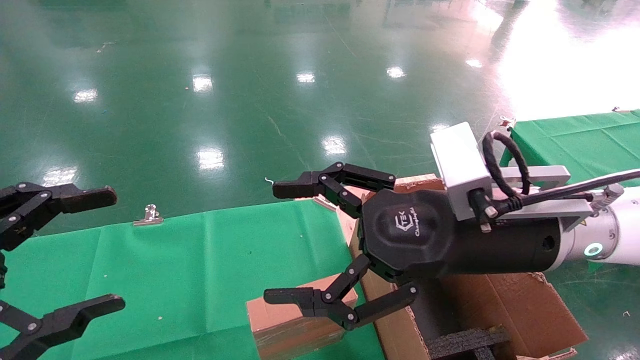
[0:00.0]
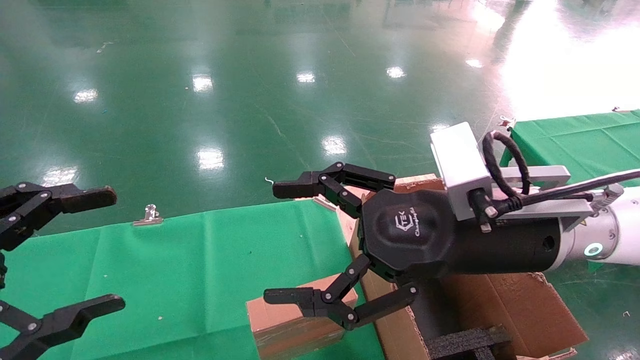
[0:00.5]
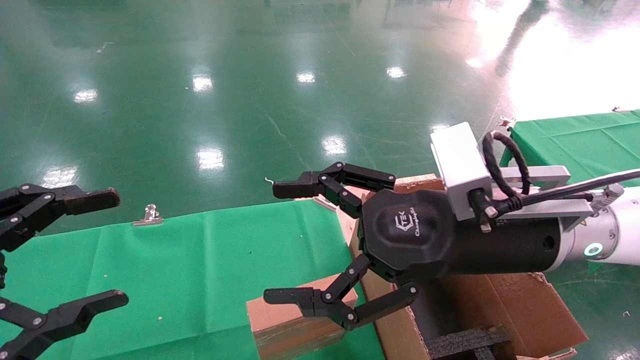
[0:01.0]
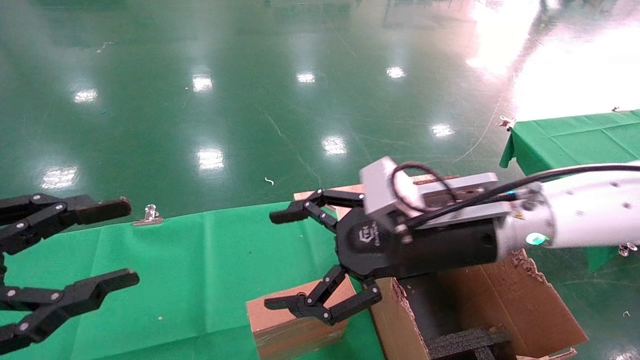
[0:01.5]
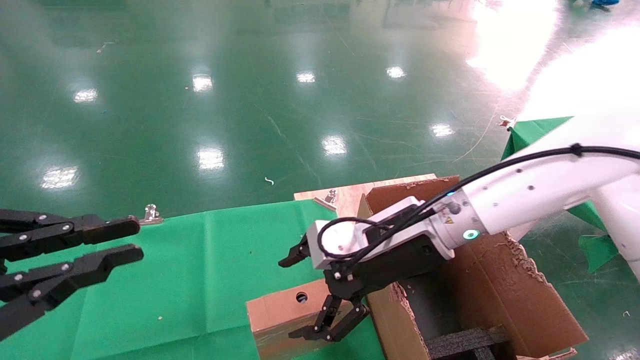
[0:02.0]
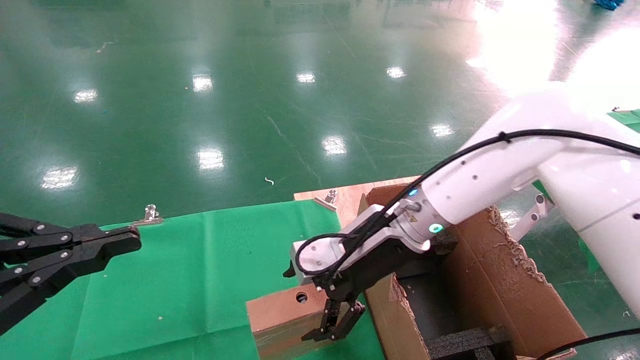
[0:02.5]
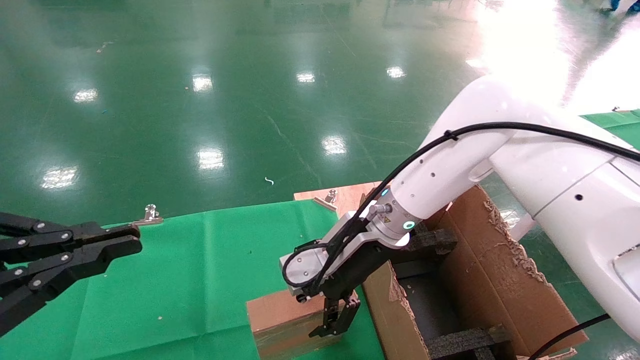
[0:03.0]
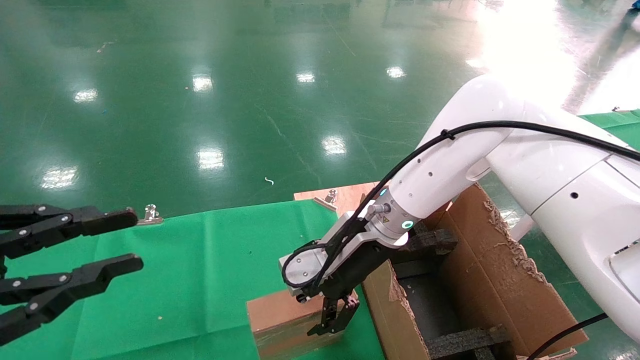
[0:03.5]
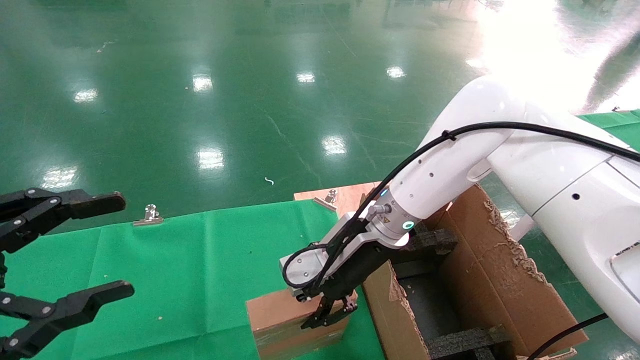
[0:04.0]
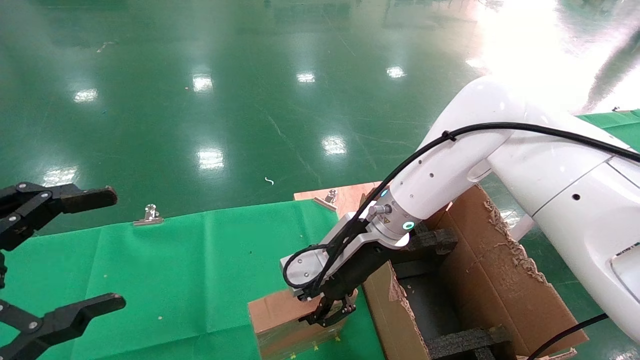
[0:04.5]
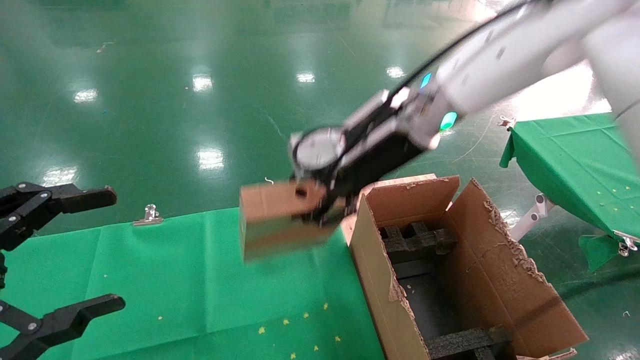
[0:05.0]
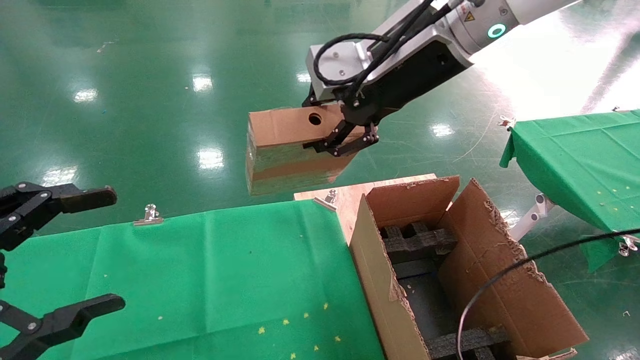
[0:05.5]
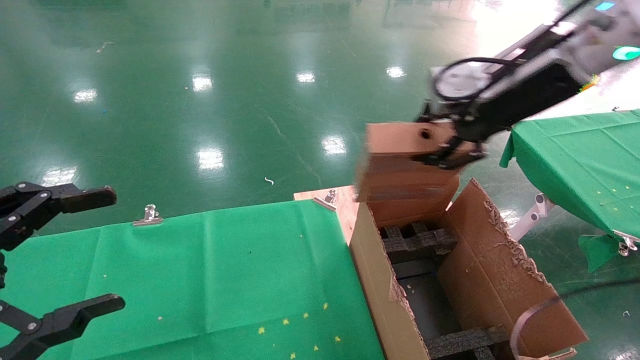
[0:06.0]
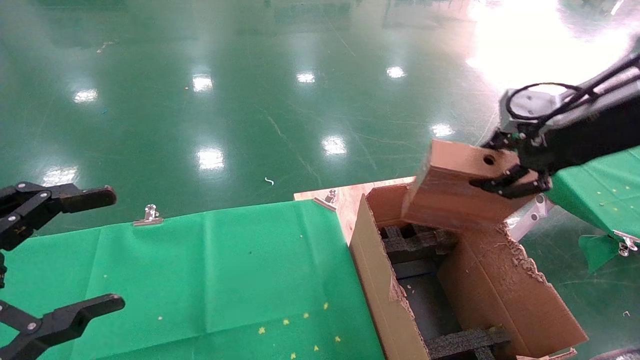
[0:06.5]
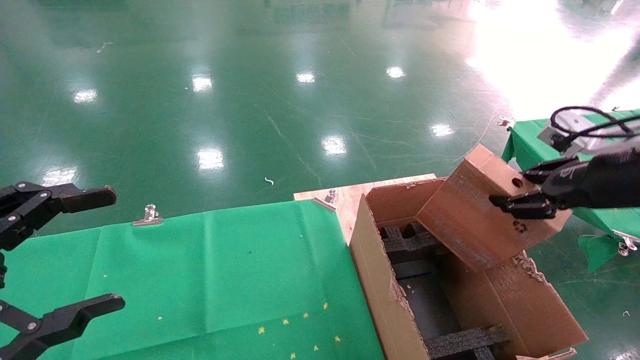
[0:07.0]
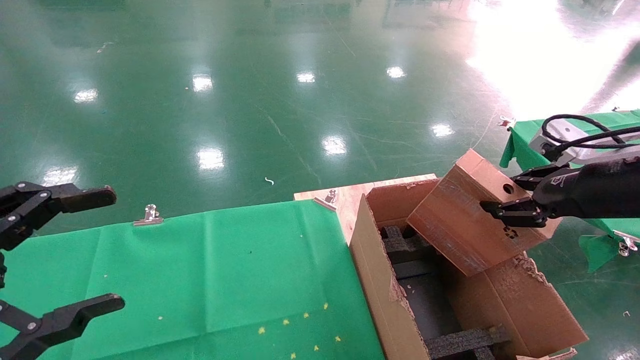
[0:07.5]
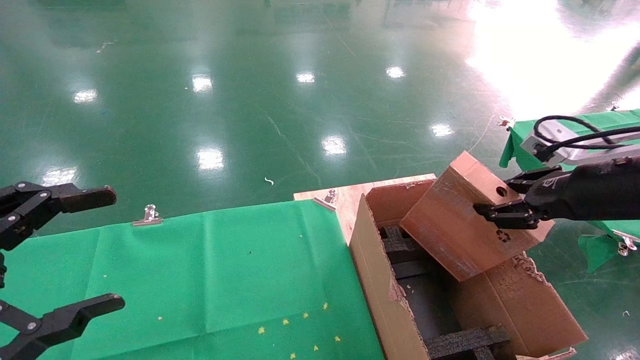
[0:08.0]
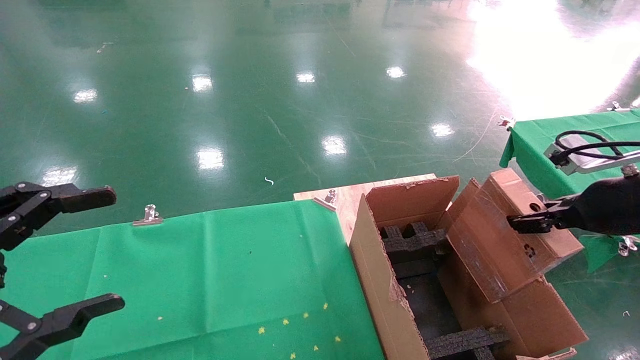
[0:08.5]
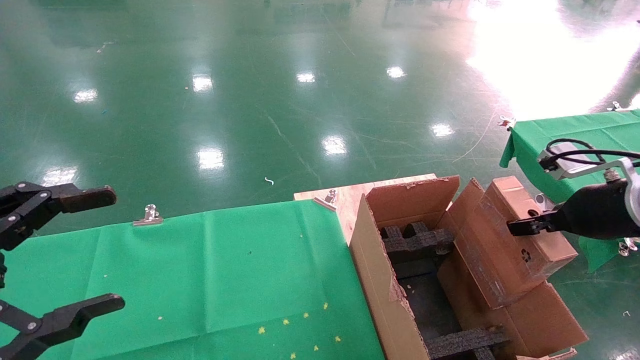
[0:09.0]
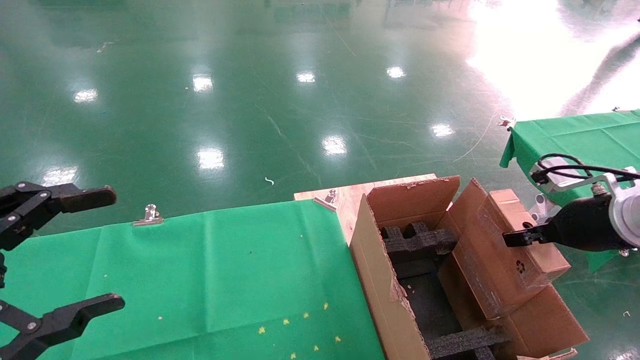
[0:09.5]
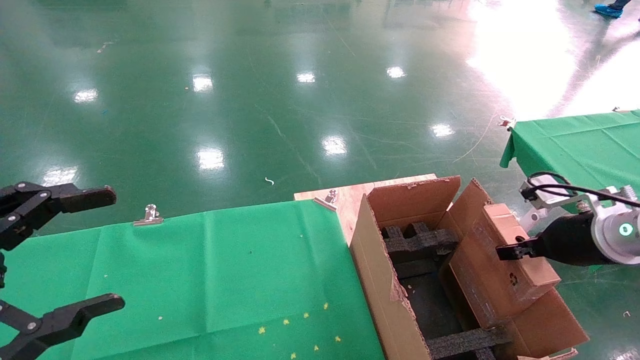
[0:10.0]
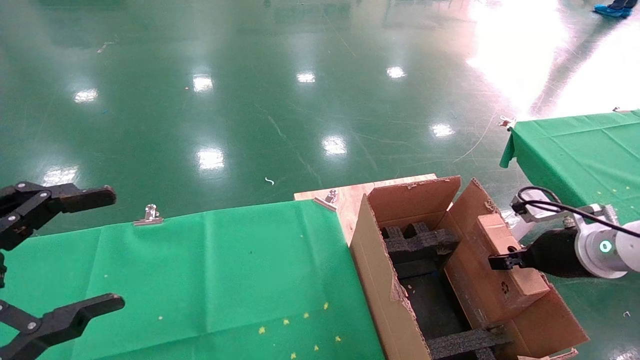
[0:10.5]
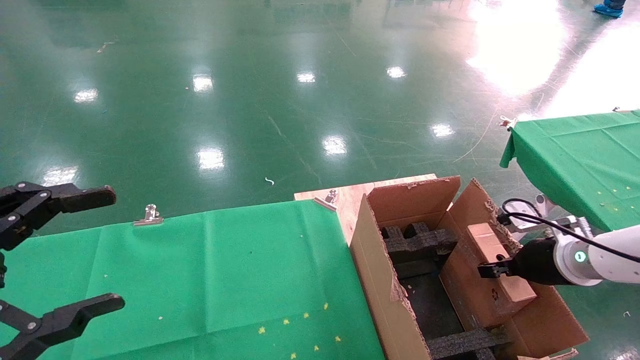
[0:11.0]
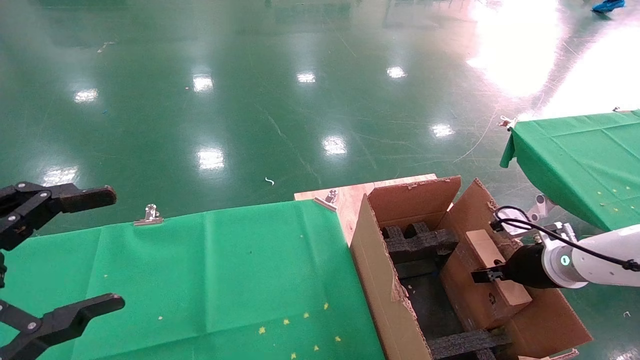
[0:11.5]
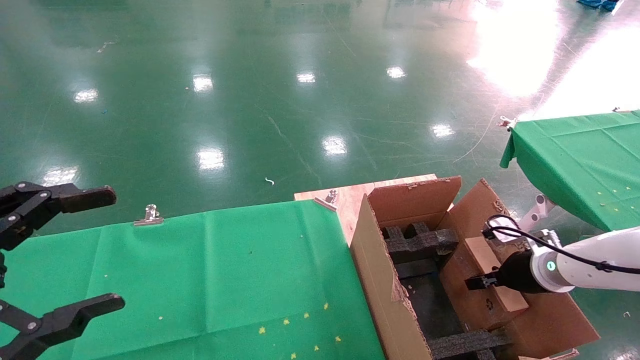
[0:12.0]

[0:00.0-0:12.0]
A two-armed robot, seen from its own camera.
Task of the whole recording: using a robotic arm to pick up a cardboard box and palace it the carton.
Step, 0:01.5 to 0:04.0: Pick up the mouse and the power cord paper box.
0:00.0 to 0:02.0: The left gripper closes, while the right gripper heads forward, covering about 10 cm.
0:02.0 to 0:04.0: The right gripper travels forward by about 5 cm, and closes its fingers. Meanwhile the left gripper opens its fingers.
0:04.0 to 0:06.0: The left gripper opens. Meanwhile the right gripper travels upward and to the right by approximately 25 cm, and closes up.
0:06.0 to 0:08.0: The right gripper is displaced downward, to the right and backward by approximately 20 cm.
0:08.0 to 0:10.0: The right gripper goes about 10 cm downward.
0:10.0 to 0:12.0: The right gripper goes approximately 15 cm downward and forward.

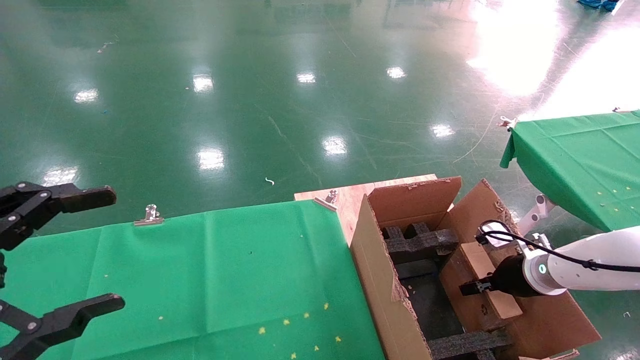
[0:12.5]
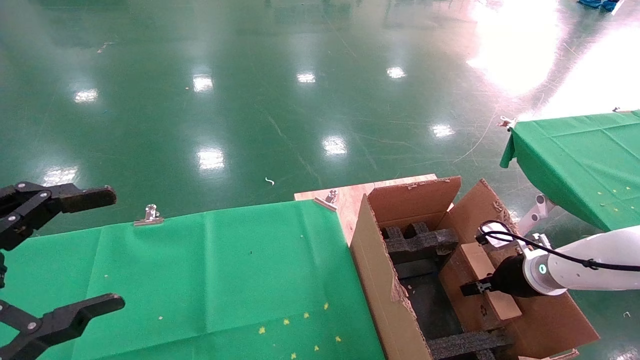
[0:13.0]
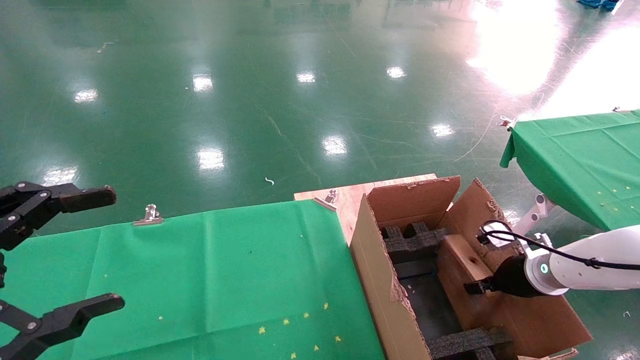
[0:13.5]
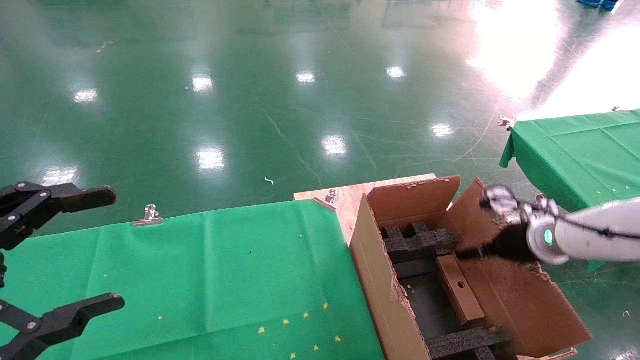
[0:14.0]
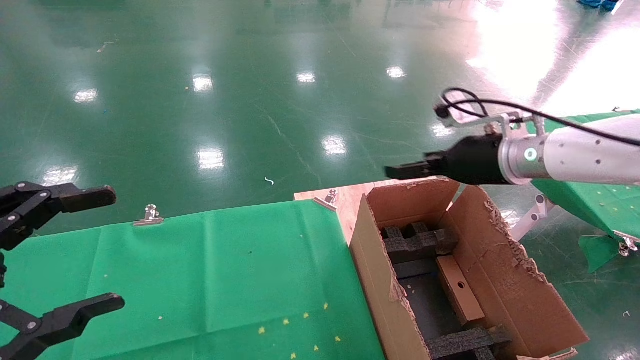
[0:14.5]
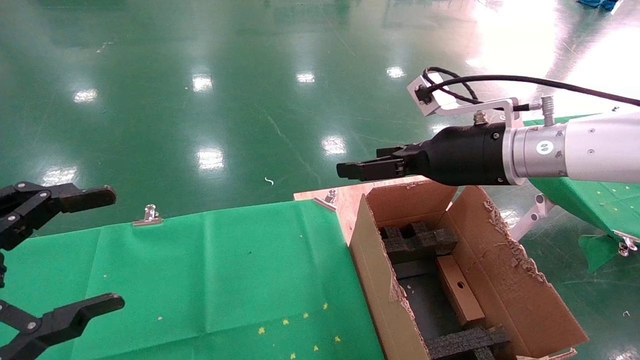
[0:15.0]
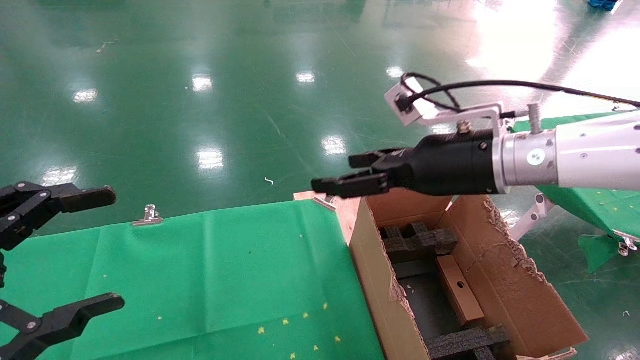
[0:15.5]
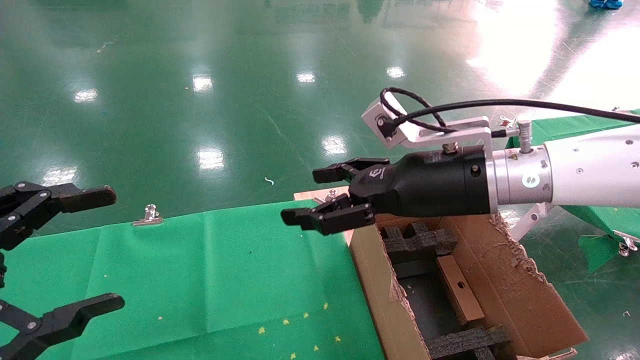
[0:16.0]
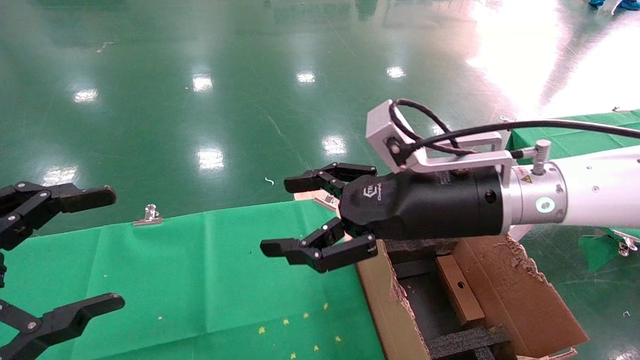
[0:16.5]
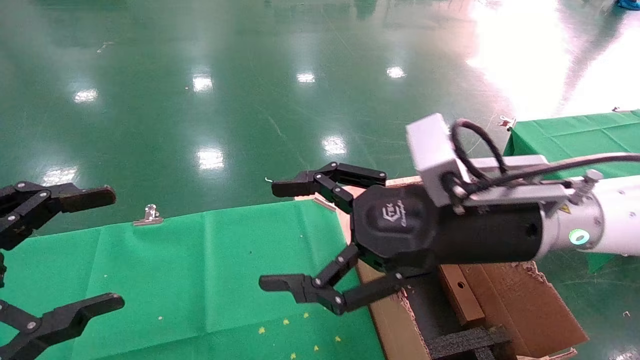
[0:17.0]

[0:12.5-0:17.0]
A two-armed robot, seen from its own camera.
Task of the whole recording: using a robotic arm to pick up a cardboard box and palace it the carton.
0:12.5 to 0:14.5: The right gripper is displaced upward and to the left by roughly 25 cm, and opens its fingers.
0:14.5 to 0:17.0: The right gripper travels backward and to the left by some 15 cm.

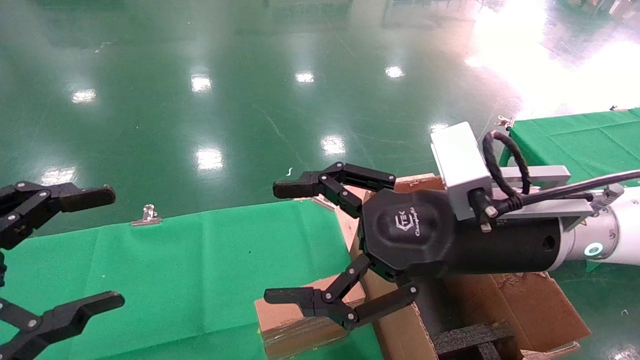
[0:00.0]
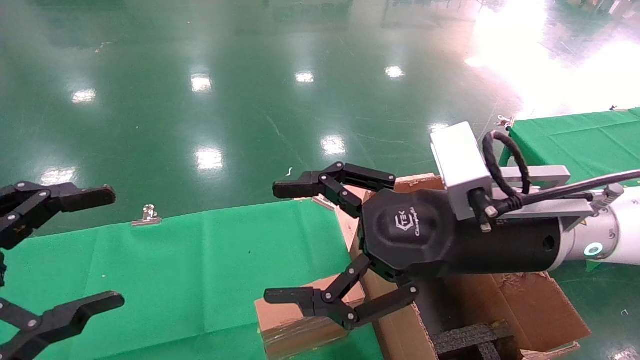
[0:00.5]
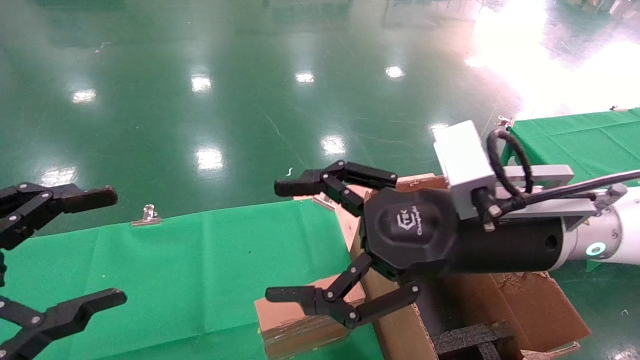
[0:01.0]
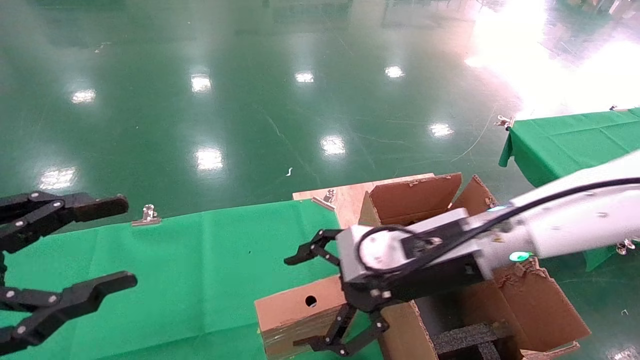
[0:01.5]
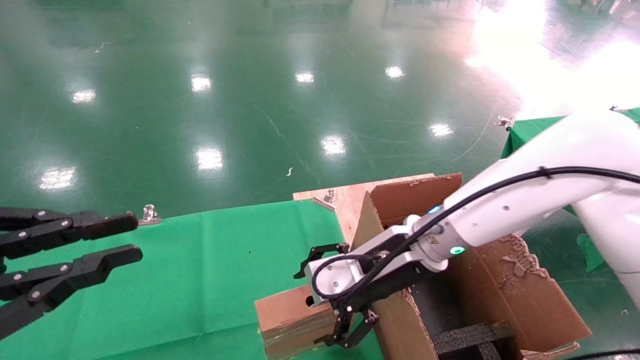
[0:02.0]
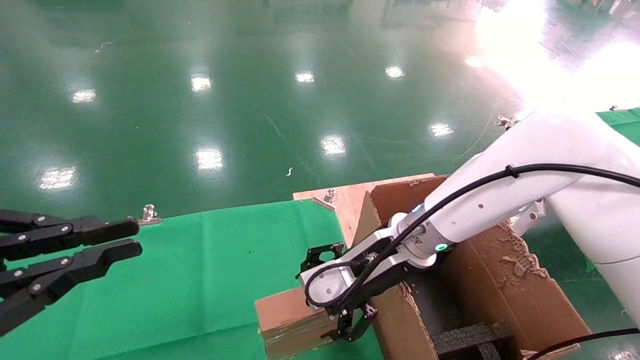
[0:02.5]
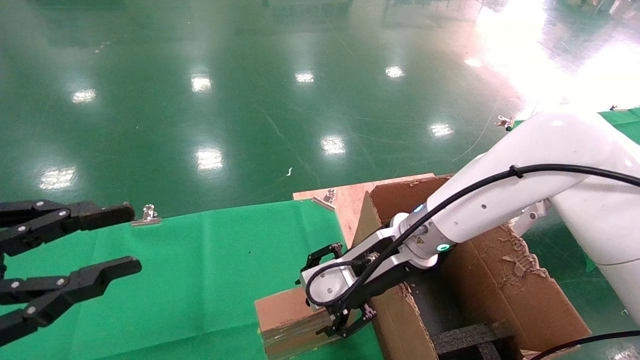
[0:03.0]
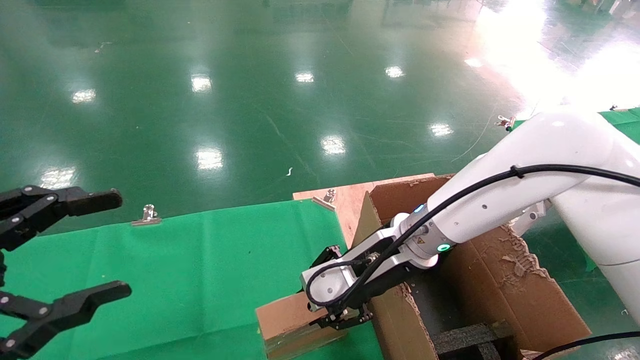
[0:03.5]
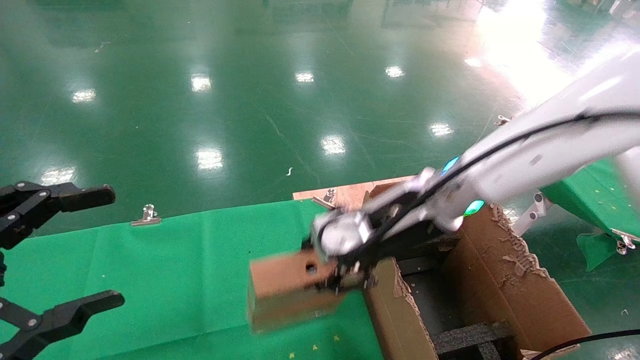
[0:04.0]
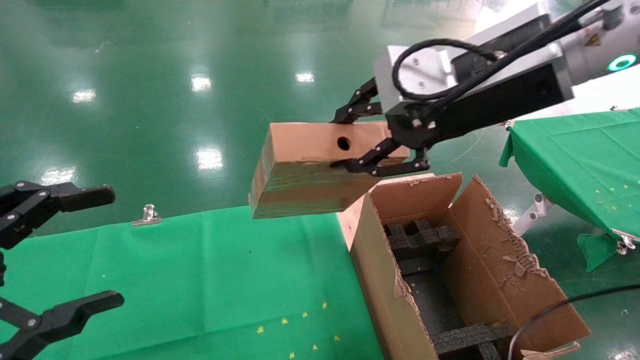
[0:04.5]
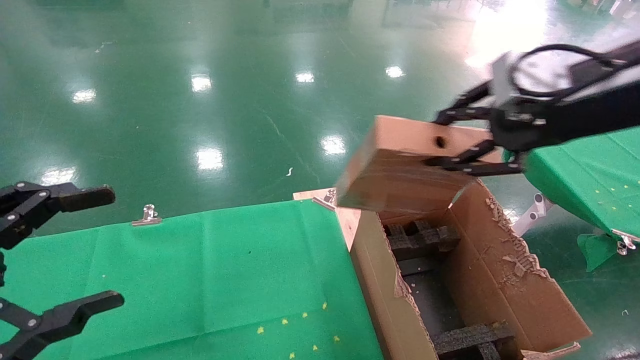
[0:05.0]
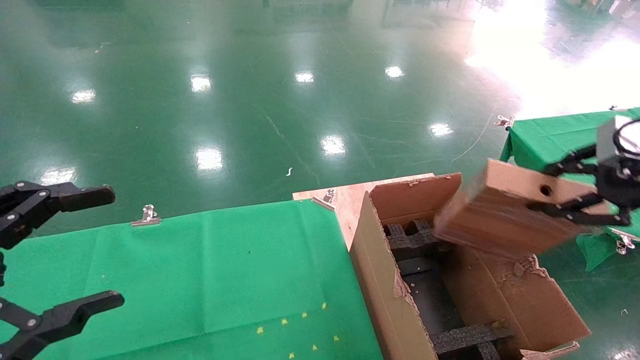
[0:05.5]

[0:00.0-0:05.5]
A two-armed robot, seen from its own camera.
Task of the whole recording: using a robotic arm to pick up a cardboard box and palace it the carton.
Step, 0:01.5 to 0:03.5: Pick up the mouse and the power cord paper box.
0:00.0 to 0:02.0: The right gripper heads forward and downward, covering some 10 cm, while the left gripper closes its fingers.
0:02.0 to 0:03.5: The left gripper opens. The right gripper closes.
0:03.5 to 0:05.5: The right gripper moves to the right, upward and backward, approximately 35 cm.
